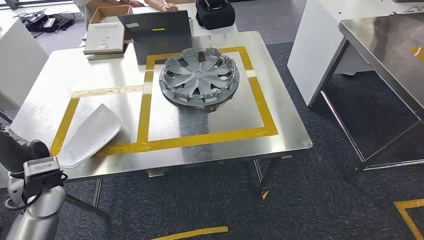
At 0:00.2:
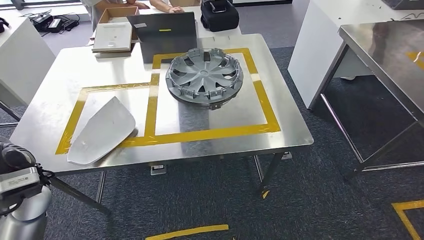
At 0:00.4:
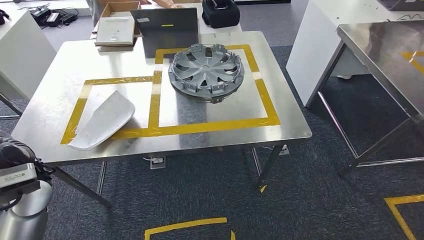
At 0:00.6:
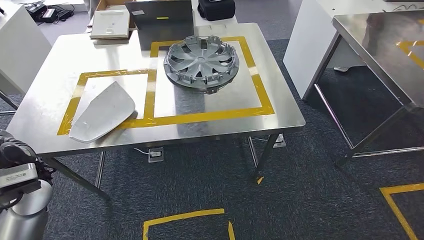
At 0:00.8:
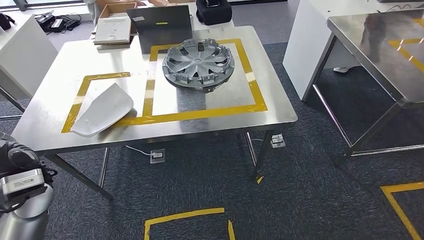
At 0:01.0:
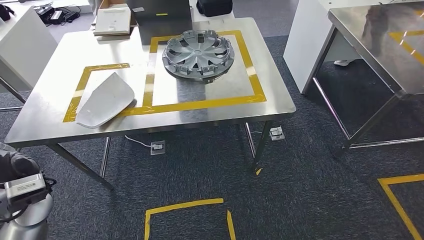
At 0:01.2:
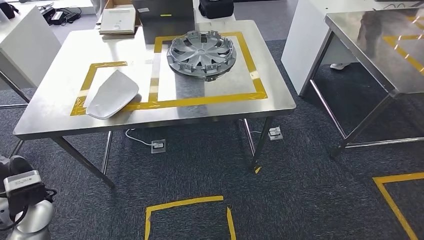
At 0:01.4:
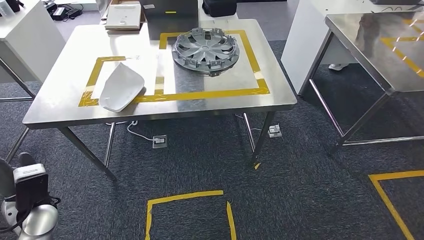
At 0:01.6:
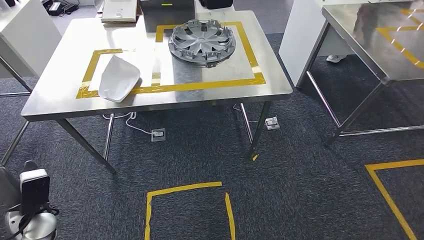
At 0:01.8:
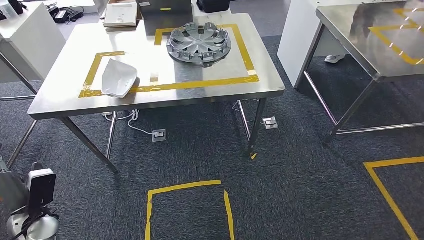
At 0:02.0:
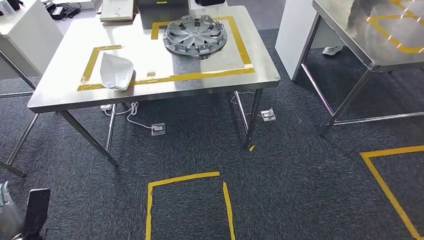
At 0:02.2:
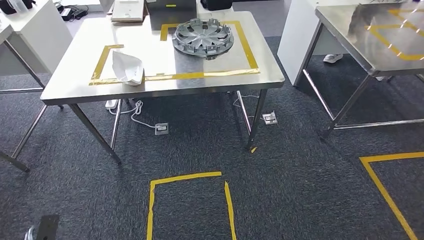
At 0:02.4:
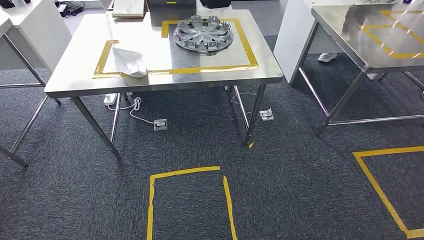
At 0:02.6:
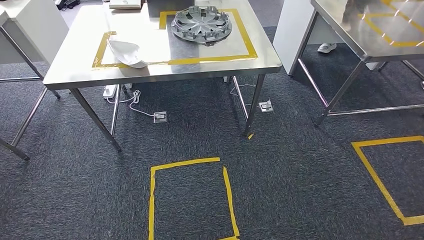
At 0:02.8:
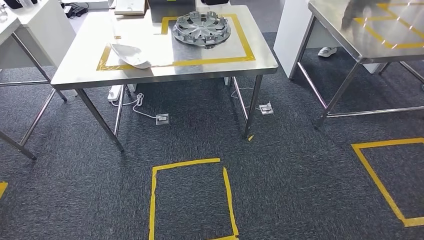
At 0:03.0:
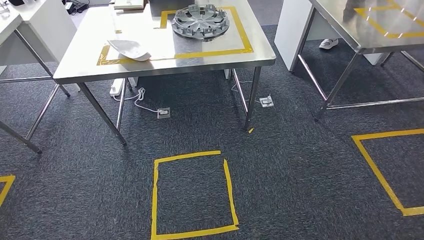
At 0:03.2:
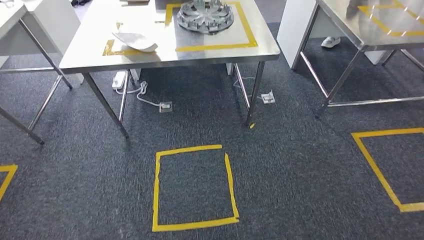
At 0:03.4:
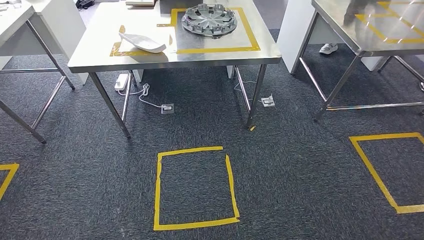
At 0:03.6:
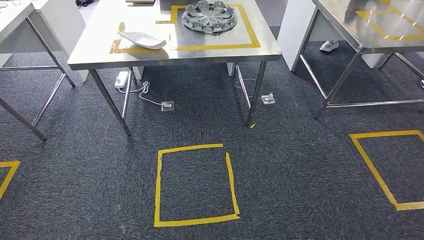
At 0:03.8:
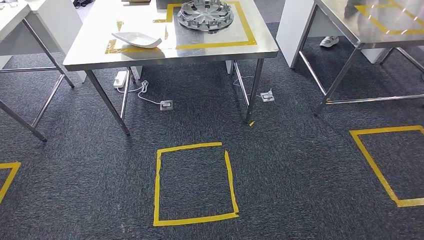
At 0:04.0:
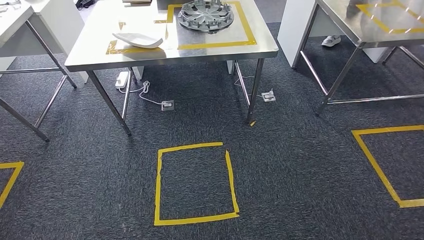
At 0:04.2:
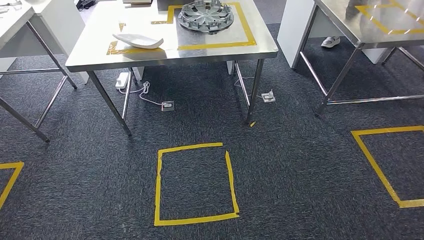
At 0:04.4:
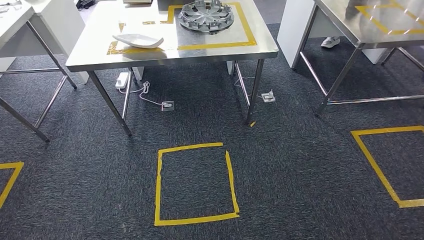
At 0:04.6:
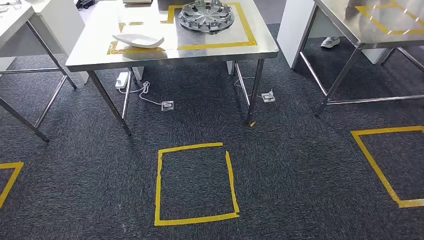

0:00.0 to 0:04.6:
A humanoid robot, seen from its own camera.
Step, 0:00.6 to 0:04.4: Move to the initial position of the workbench.
